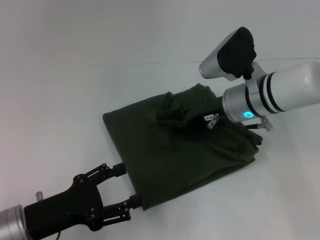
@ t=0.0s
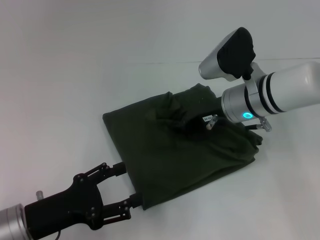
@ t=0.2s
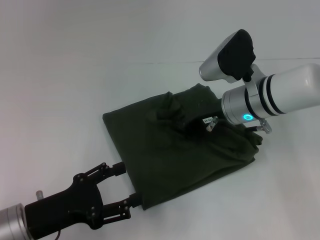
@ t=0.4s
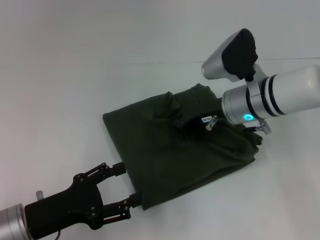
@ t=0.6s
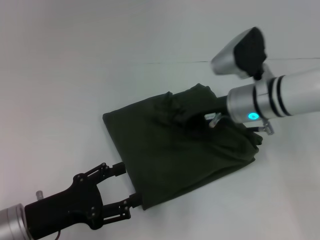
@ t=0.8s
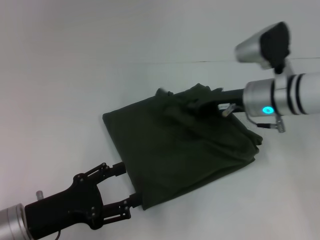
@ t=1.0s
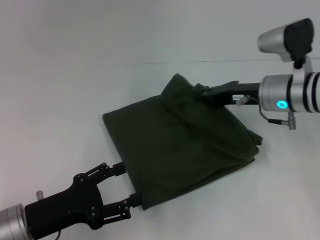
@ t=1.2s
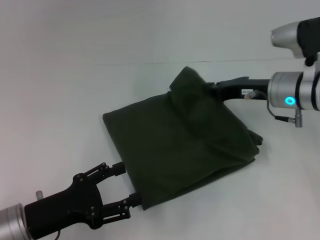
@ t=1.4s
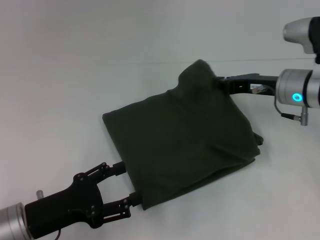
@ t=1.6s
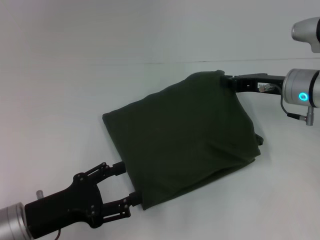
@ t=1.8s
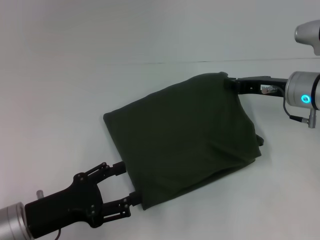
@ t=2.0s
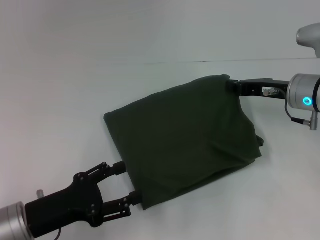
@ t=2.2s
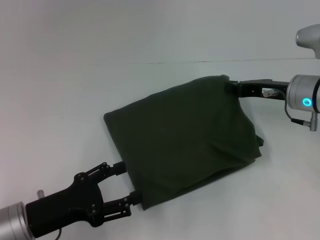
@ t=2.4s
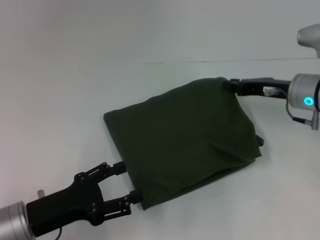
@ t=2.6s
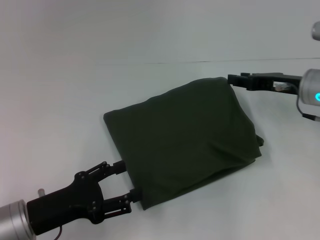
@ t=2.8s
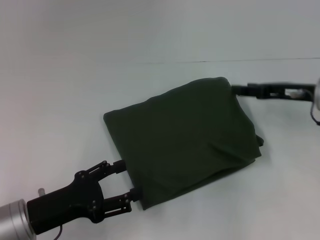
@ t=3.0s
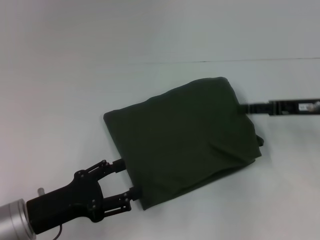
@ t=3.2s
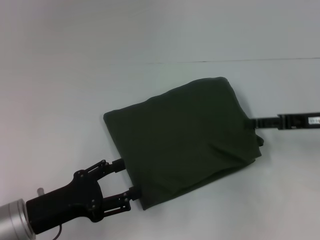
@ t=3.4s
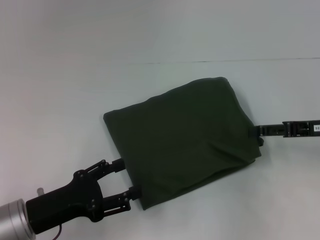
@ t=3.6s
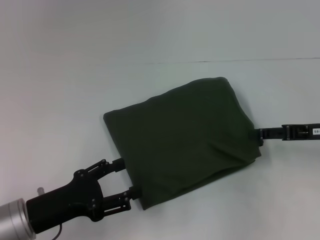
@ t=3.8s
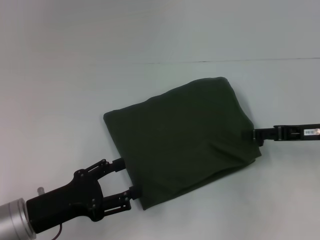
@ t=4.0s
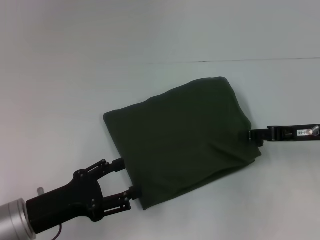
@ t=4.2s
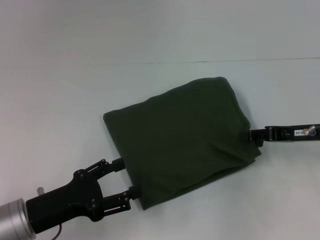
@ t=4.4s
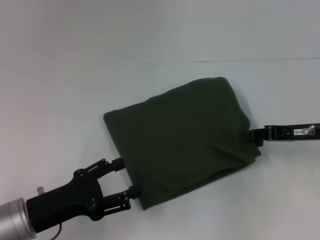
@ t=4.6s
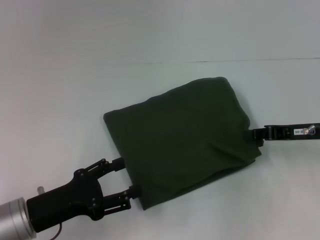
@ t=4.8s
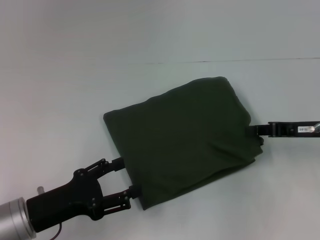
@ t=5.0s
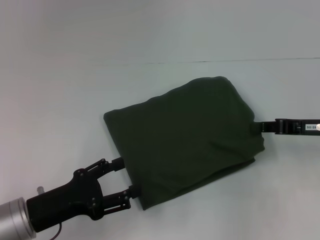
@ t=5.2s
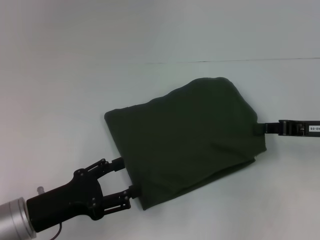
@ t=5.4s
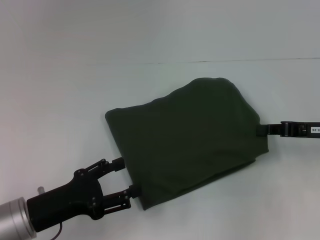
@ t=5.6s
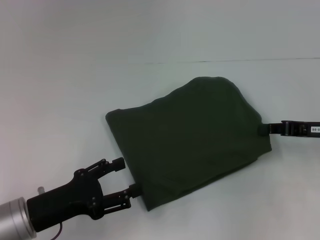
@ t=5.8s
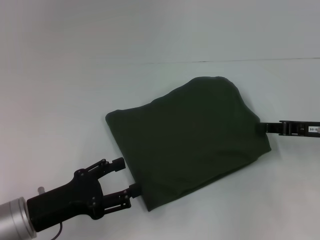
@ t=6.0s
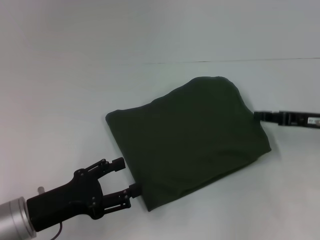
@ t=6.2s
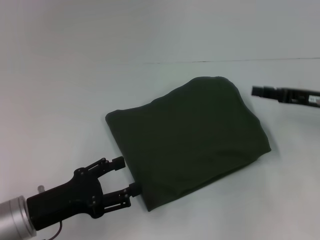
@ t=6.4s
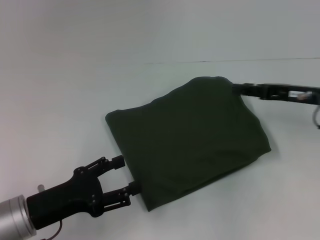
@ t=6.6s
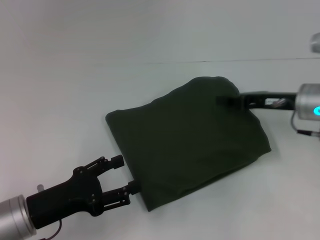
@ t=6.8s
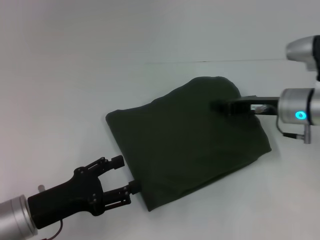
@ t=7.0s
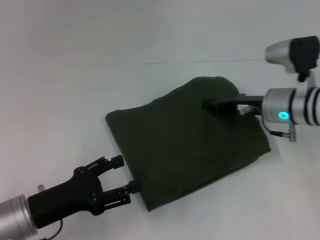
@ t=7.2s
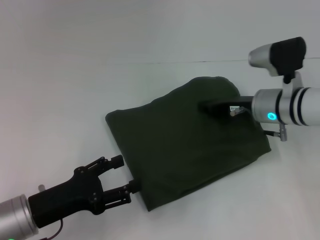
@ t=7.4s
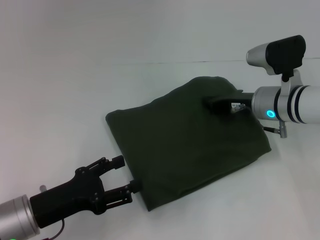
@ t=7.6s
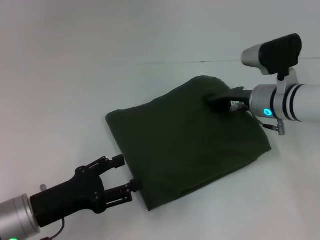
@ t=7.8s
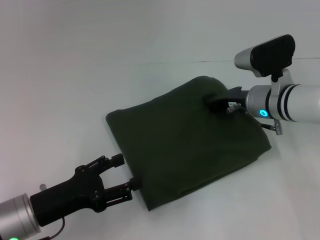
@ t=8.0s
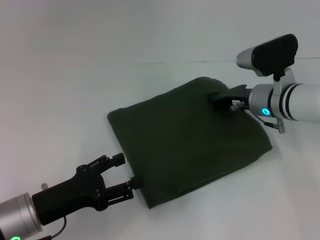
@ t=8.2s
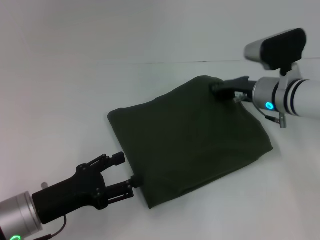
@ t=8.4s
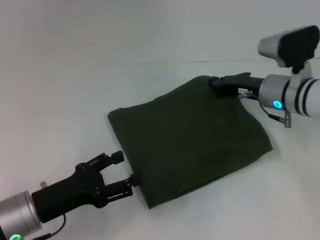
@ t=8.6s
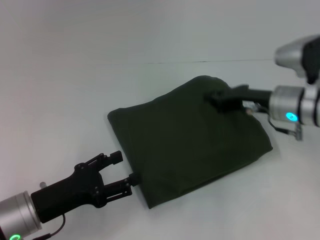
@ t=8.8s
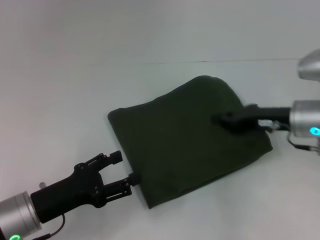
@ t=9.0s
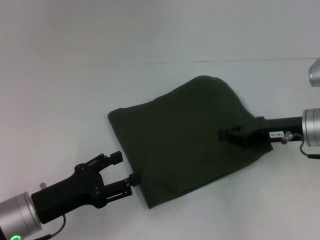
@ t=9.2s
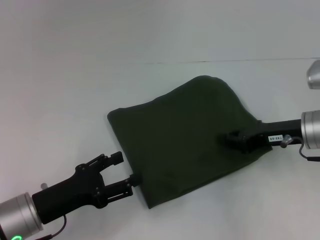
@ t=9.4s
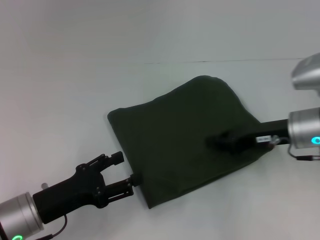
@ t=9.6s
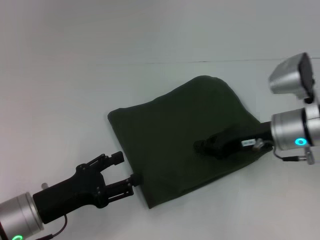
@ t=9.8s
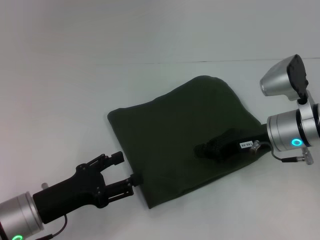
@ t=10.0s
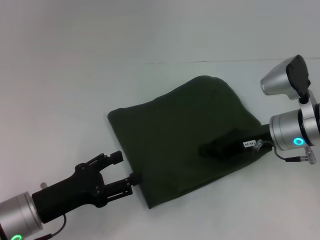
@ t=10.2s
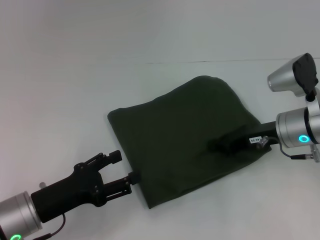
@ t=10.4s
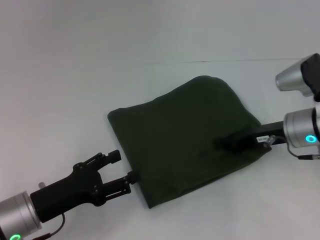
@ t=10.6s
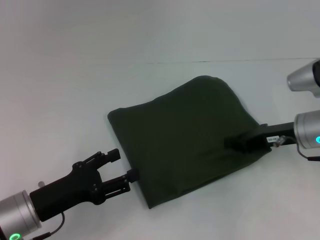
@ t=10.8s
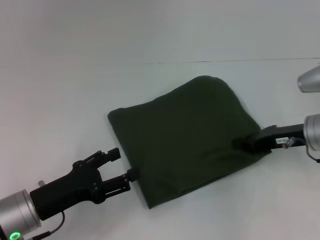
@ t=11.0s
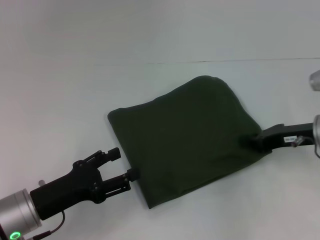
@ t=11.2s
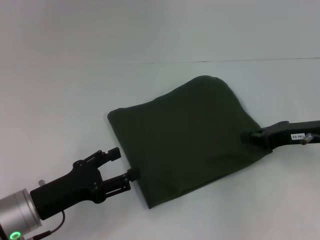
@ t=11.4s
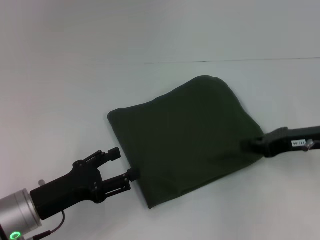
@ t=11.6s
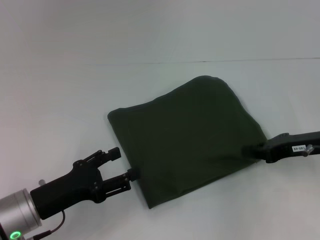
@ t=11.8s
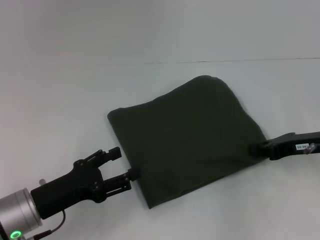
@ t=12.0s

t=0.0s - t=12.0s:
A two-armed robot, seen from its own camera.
t=0.0s - t=1.6s: The right gripper shifts approximately 10 cm to the right, and closes.
t=1.6s - t=3.0s: The right gripper is displaced to the right by about 5 cm, and opens up.
t=3.0s - t=4.4s: The grippers stay close to where they were, moving slightly.
t=4.4s - t=6.0s: The right gripper closes its fingers.
t=6.0s - t=7.6s: The right gripper heads to the left and forward, covering approximately 15 cm, and opens and closes again.
t=7.6s - t=9.0s: The right gripper changes place by roughly 5 cm.
t=9.0s - t=10.4s: The grippers move only a little.
t=10.4s - t=12.0s: The right gripper moves to the right, about 5 cm.

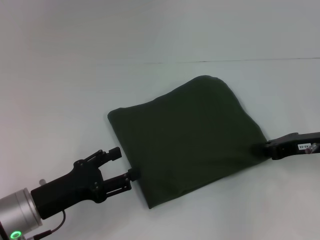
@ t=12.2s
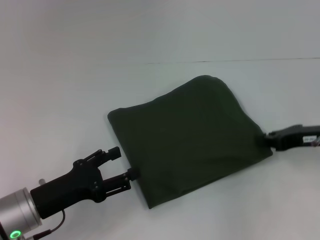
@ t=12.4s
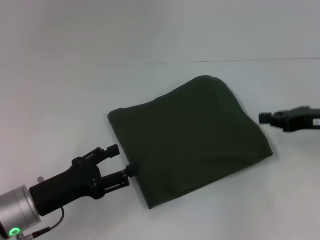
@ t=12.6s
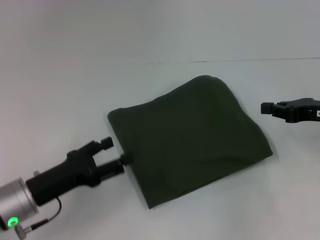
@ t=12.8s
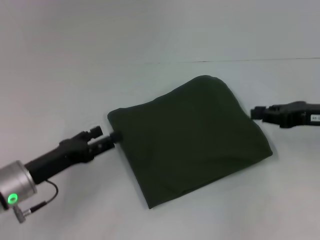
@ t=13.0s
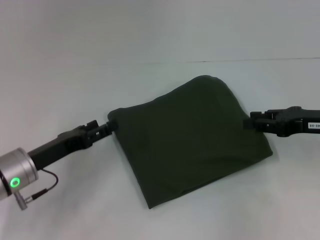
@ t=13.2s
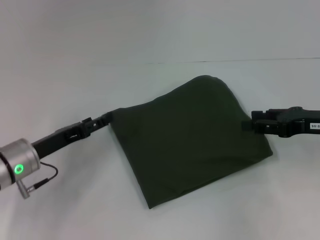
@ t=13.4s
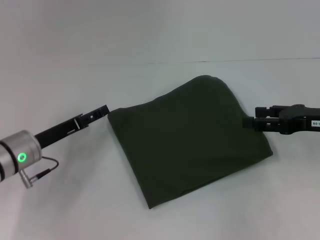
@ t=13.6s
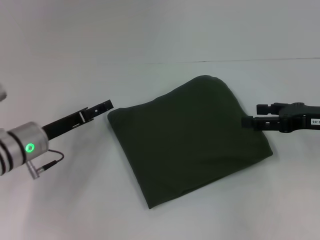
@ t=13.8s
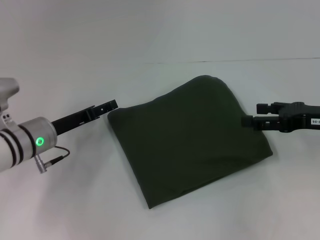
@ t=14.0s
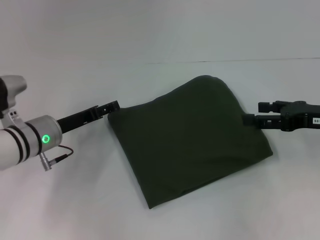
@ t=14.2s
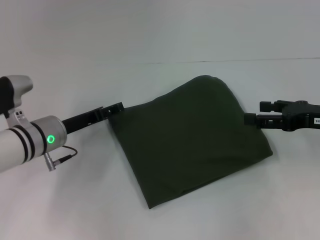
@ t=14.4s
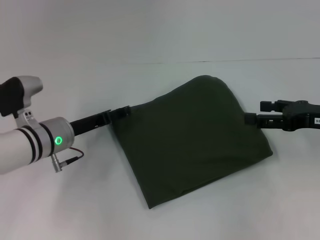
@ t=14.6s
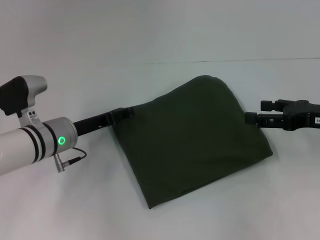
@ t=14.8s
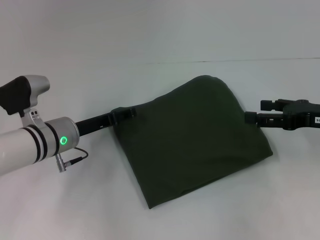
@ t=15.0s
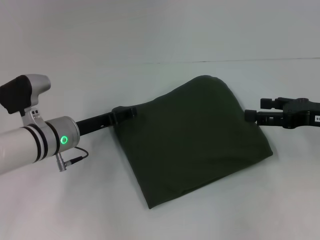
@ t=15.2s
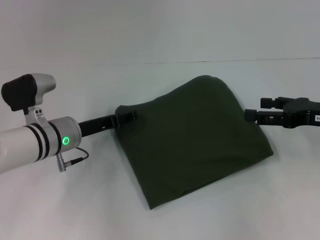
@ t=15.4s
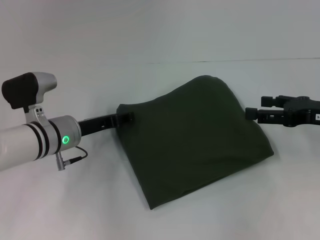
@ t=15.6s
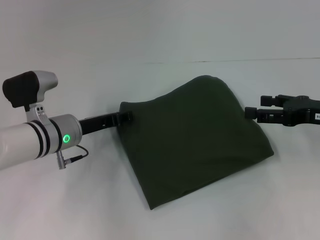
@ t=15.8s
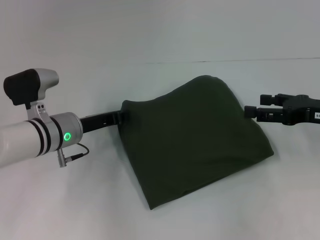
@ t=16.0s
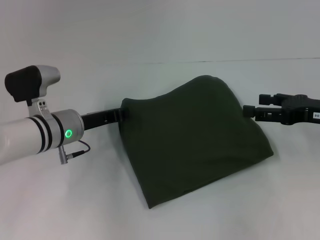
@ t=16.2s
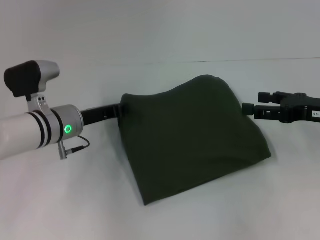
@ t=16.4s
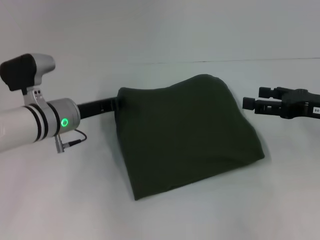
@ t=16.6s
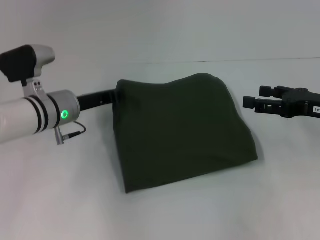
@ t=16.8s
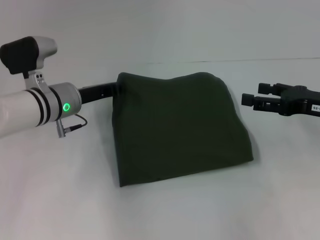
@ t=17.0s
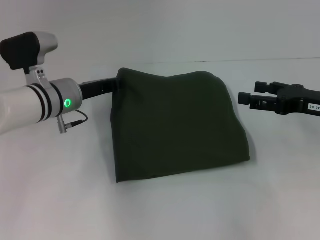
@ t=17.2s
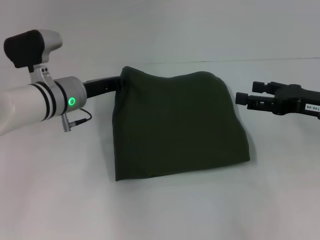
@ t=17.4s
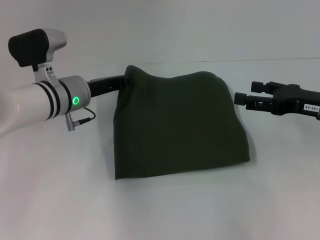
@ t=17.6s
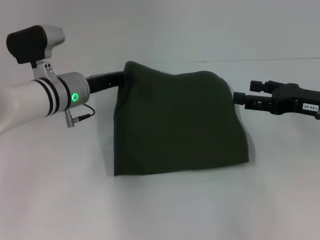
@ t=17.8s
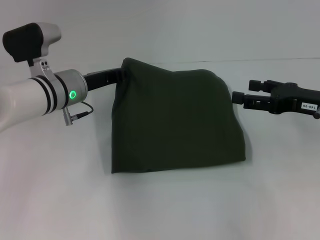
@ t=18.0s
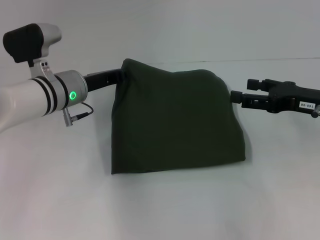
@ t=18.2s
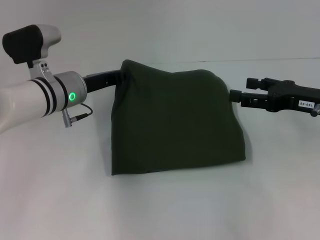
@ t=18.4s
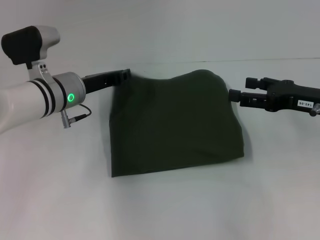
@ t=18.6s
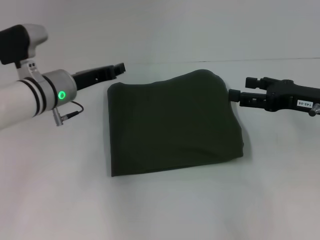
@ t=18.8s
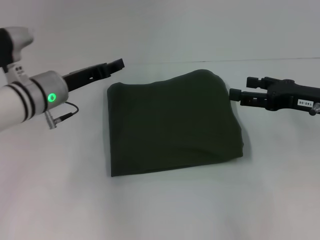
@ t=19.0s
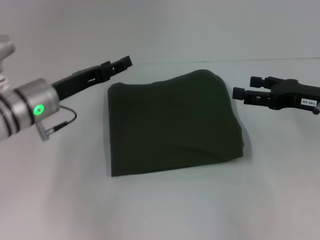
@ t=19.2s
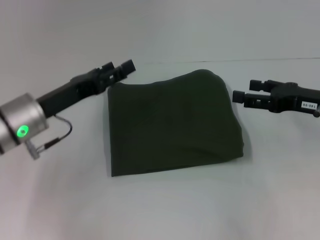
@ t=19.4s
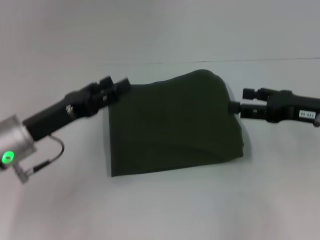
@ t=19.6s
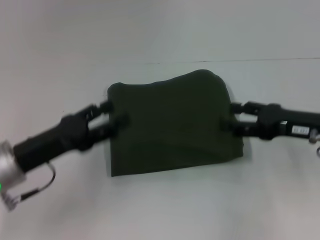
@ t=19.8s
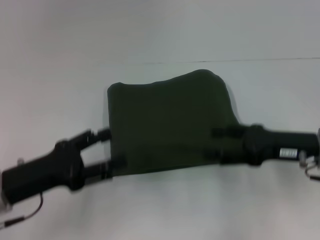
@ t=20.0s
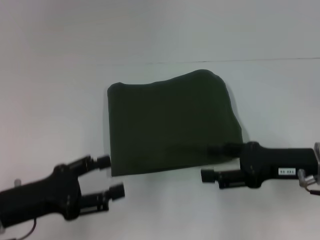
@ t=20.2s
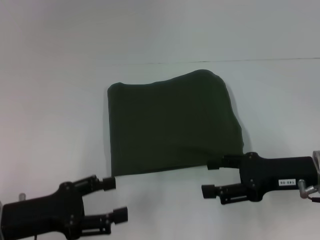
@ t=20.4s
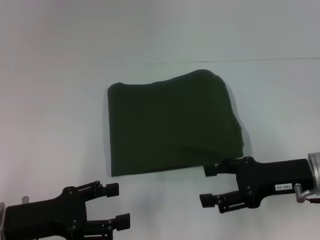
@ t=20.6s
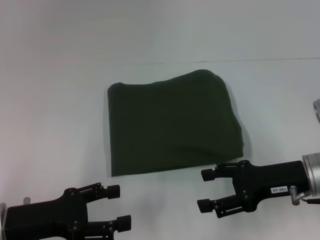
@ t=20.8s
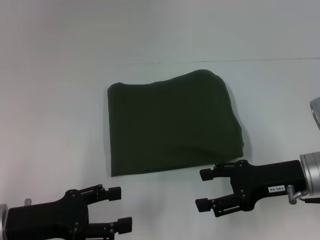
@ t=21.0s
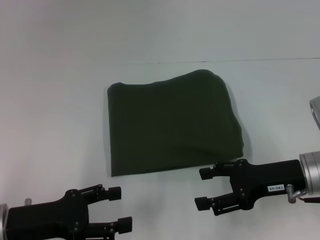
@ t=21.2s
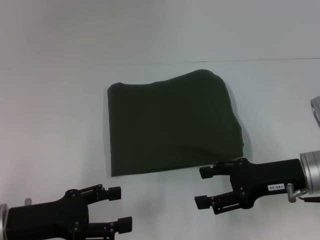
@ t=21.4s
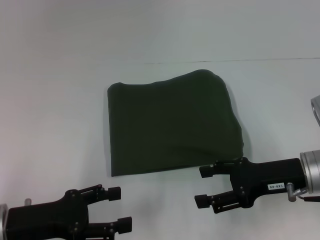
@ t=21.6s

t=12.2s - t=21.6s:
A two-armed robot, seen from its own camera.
t=12.2s - t=13.8s: The right gripper opens up. The left gripper is displaced forward by roughly 10 cm.
t=13.8s - t=15.4s: The left gripper goes roughly 5 cm to the right.
t=15.4s - t=17.0s: The left gripper ends up about 5 cm from where it was, and closes its fingers.
t=17.0s - t=18.4s: There are only small adjustments of the grippers.
t=18.4s - t=20.0s: The left gripper travels backward and to the left by approximately 20 cm, and opens up. Meanwhile the right gripper changes place by about 5 cm.
